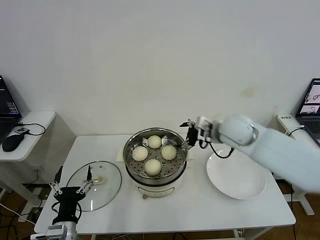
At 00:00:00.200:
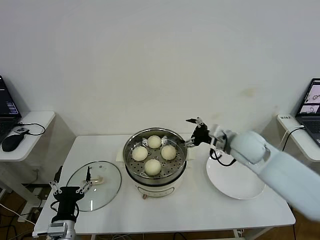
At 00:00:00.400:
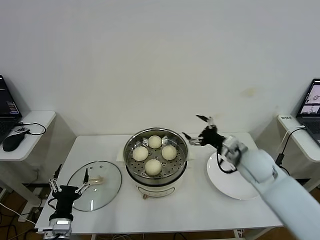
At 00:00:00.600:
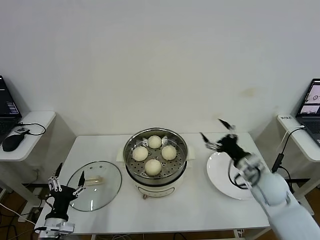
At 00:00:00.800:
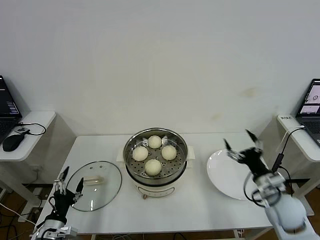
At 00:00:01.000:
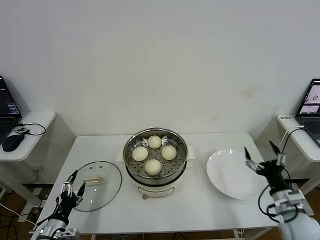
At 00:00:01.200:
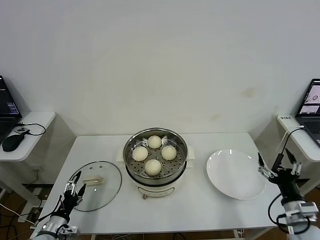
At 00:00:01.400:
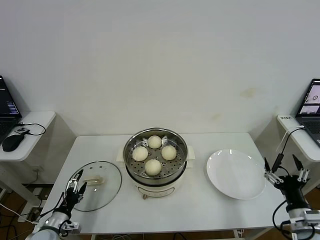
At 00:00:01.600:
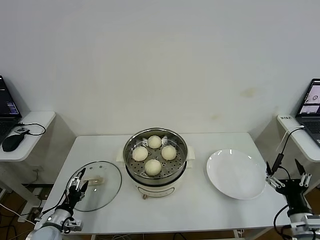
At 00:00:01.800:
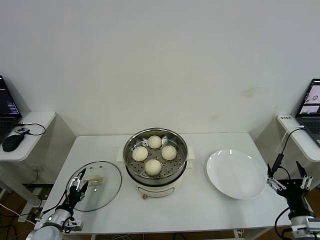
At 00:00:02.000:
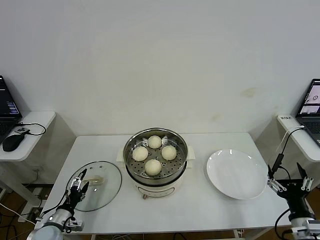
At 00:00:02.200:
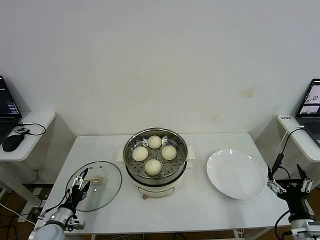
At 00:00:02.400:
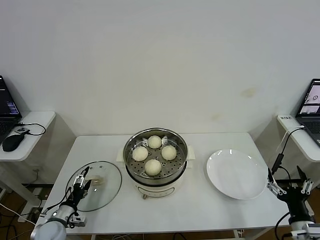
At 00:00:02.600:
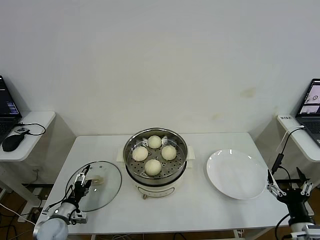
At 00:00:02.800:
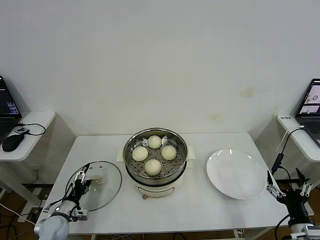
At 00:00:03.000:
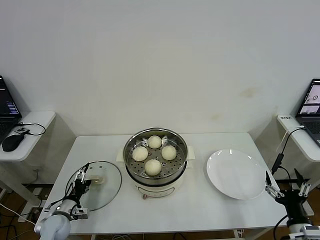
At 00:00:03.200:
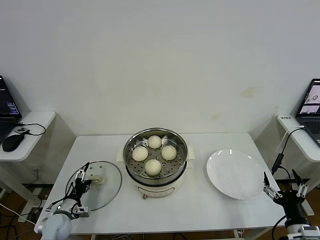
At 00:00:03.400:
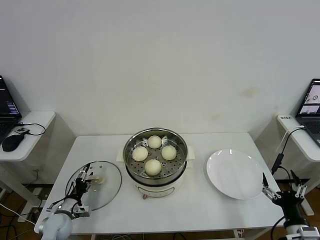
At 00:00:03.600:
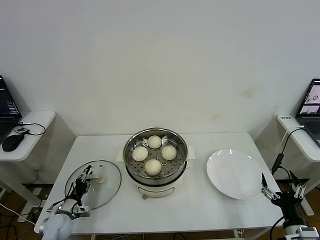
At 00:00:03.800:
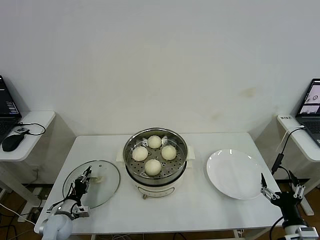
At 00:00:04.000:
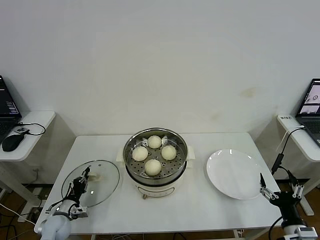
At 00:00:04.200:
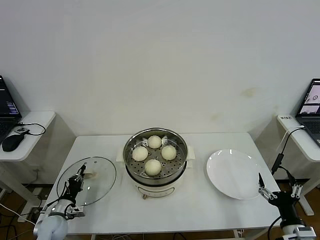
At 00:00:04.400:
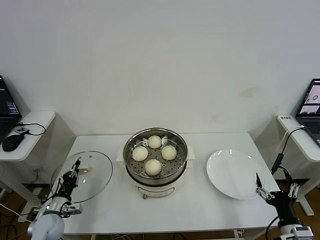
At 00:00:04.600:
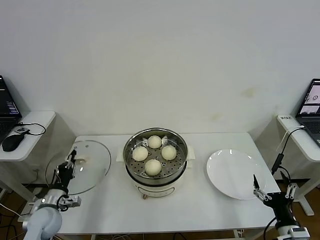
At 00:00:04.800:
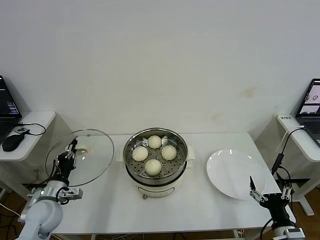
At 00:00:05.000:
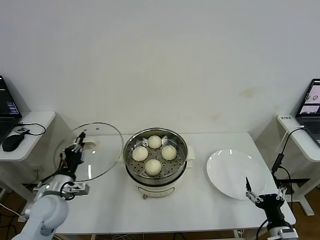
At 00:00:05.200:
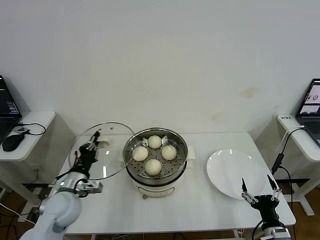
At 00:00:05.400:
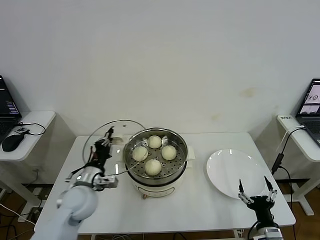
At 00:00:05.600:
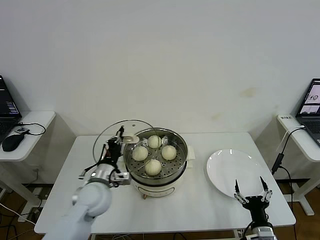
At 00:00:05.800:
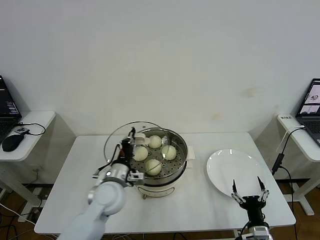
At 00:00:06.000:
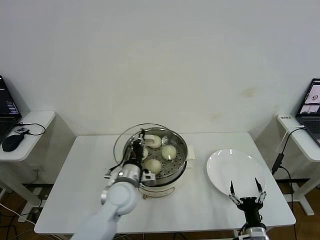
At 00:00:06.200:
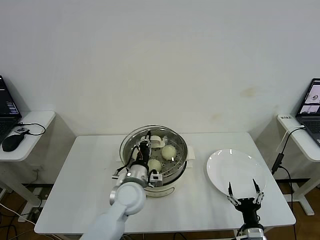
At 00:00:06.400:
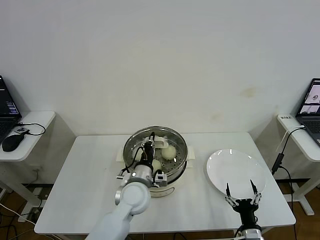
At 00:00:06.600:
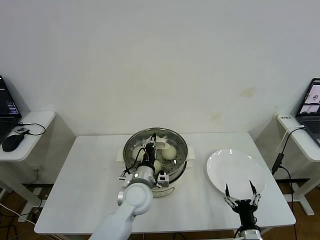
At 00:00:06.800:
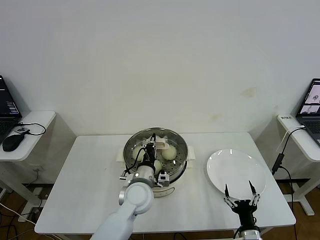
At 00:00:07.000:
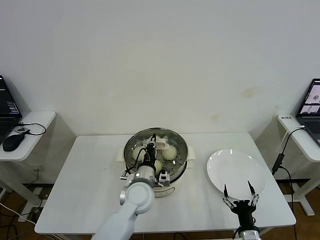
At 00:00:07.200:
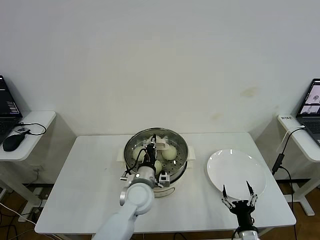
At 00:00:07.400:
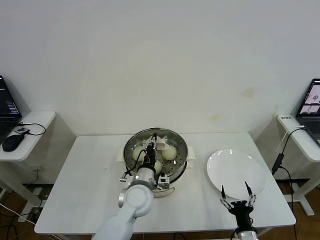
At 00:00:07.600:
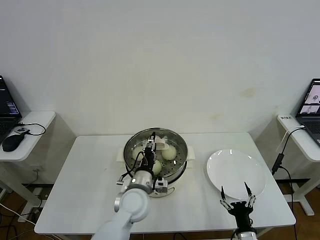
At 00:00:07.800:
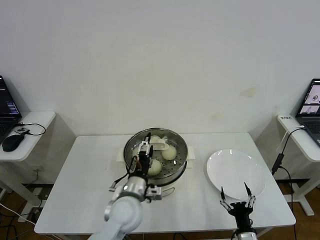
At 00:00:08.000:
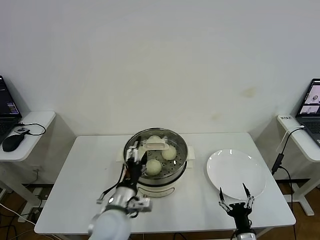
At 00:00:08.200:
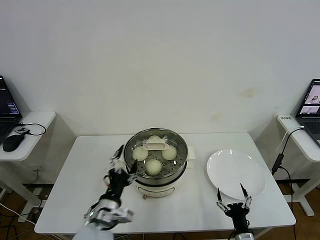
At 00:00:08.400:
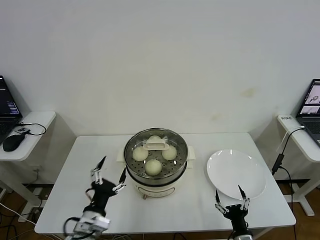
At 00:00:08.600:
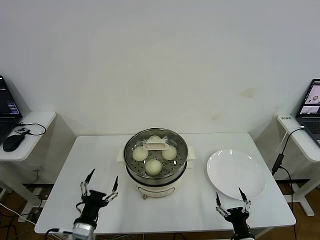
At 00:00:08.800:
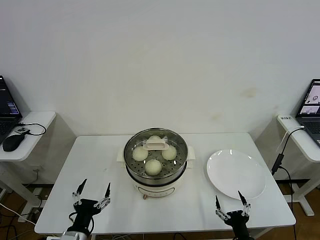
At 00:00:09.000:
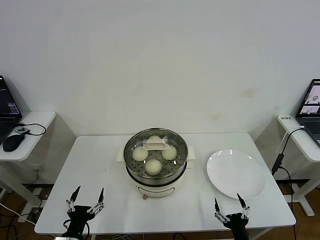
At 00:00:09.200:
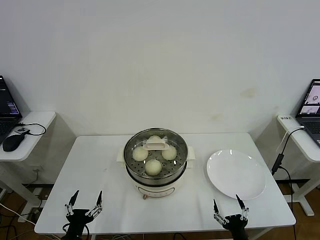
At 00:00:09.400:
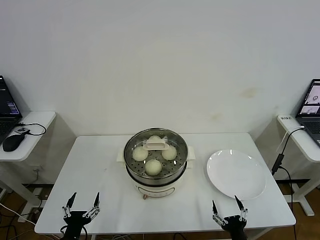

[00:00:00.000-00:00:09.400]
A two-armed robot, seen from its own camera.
Step, 00:00:00.000 to 00:00:04.000: Grasp the pot lid with left gripper.
Step, 00:00:04.200 to 00:00:07.400: Place the pot lid on the steamer with left gripper.
00:00:00.000 to 00:00:01.600: The left gripper travels to the left, downward and forward by approximately 15 cm, while the right gripper is displaced backward, to the right and downward by roughly 40 cm.
00:00:01.600 to 00:00:03.200: The left gripper is displaced forward by some 5 cm.
00:00:03.200 to 00:00:04.800: The left gripper heads upward, covering approximately 15 cm, and closes its fingers.
00:00:04.800 to 00:00:06.200: The right gripper moves to the left and downward, about 10 cm, while the left gripper goes about 25 cm to the right.
00:00:06.200 to 00:00:07.800: The left gripper opens up.
00:00:07.800 to 00:00:09.400: The left gripper goes some 30 cm to the left, backward and downward.

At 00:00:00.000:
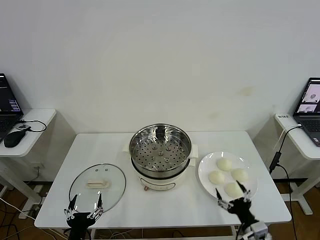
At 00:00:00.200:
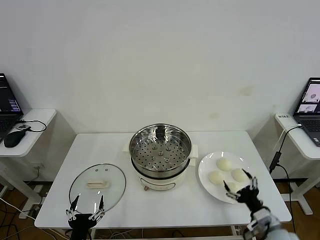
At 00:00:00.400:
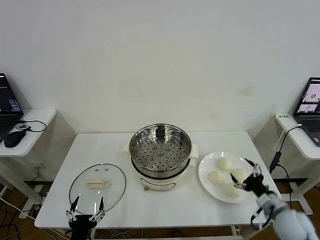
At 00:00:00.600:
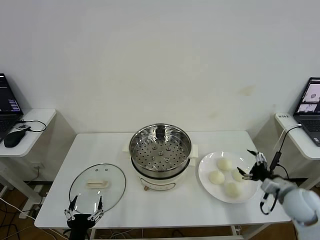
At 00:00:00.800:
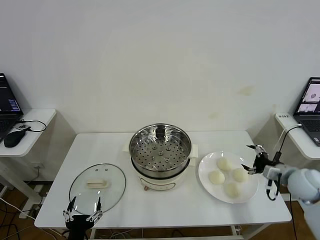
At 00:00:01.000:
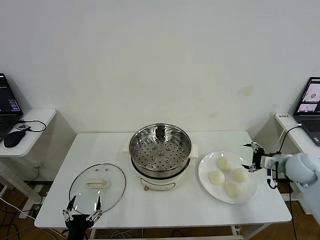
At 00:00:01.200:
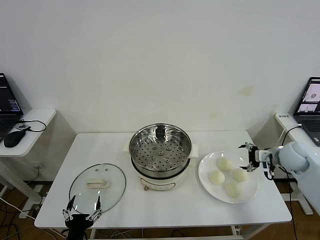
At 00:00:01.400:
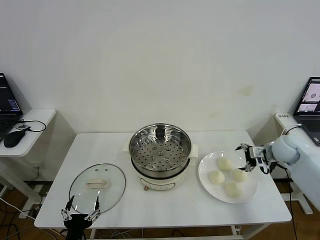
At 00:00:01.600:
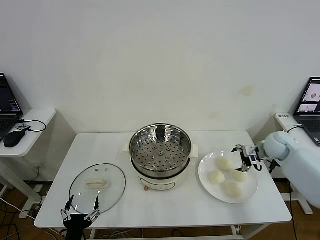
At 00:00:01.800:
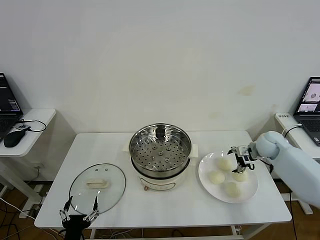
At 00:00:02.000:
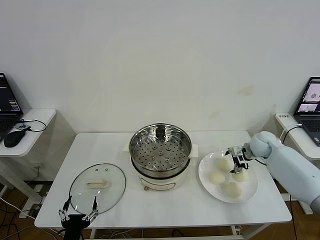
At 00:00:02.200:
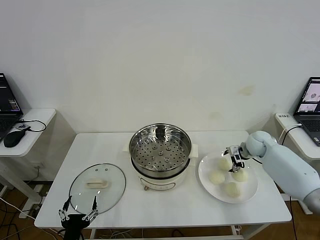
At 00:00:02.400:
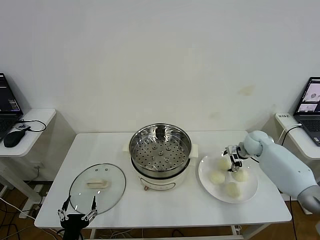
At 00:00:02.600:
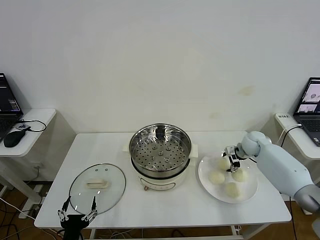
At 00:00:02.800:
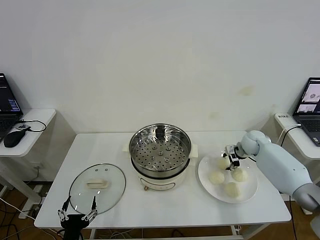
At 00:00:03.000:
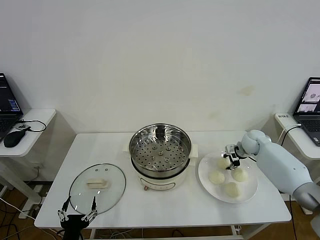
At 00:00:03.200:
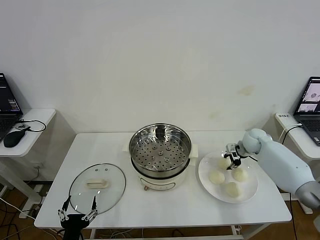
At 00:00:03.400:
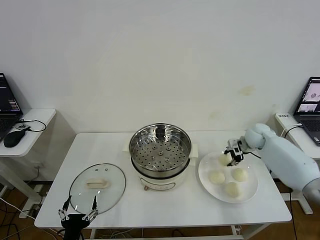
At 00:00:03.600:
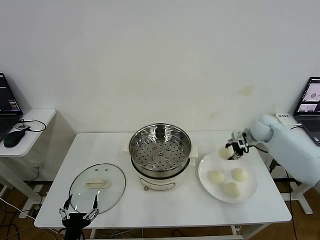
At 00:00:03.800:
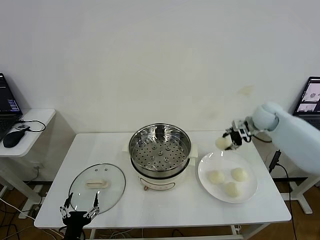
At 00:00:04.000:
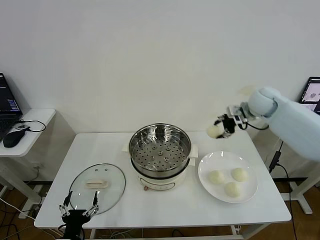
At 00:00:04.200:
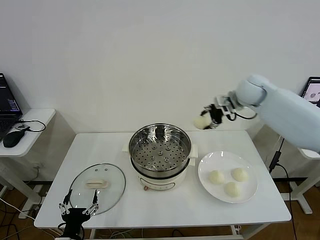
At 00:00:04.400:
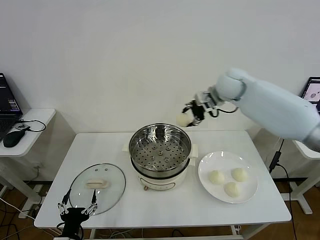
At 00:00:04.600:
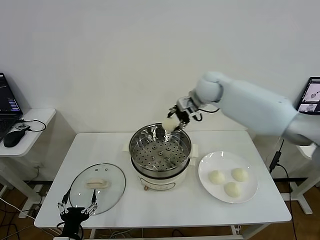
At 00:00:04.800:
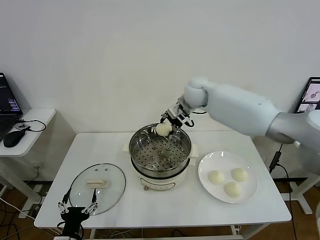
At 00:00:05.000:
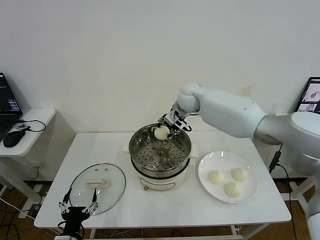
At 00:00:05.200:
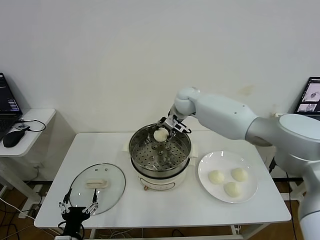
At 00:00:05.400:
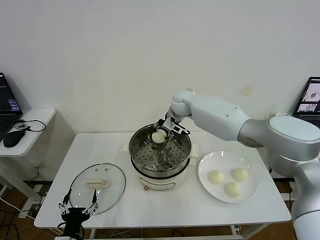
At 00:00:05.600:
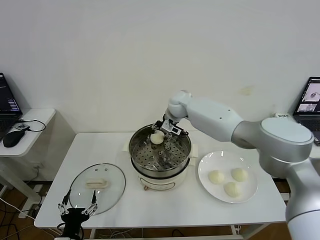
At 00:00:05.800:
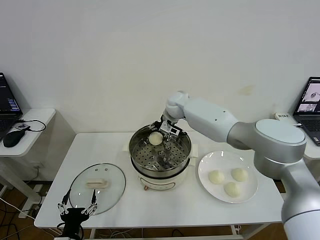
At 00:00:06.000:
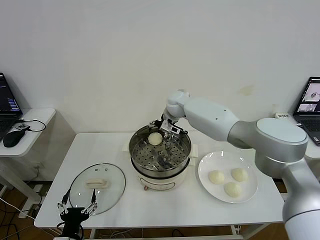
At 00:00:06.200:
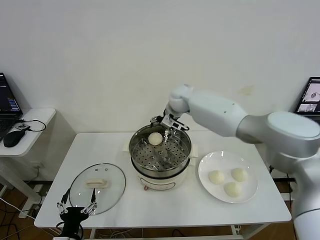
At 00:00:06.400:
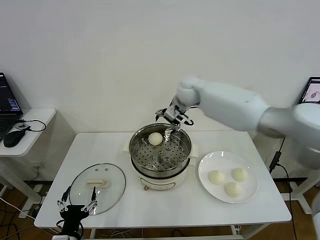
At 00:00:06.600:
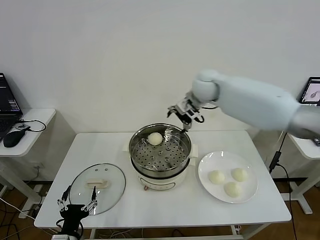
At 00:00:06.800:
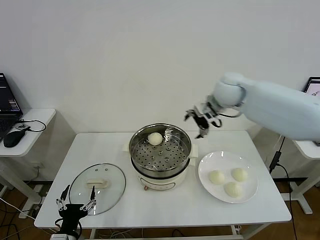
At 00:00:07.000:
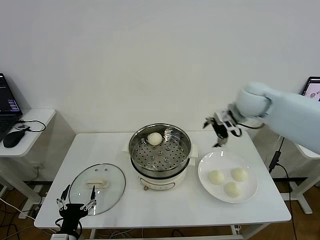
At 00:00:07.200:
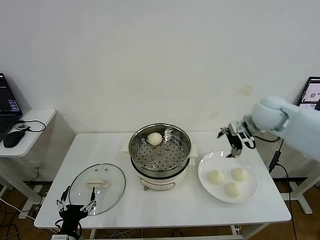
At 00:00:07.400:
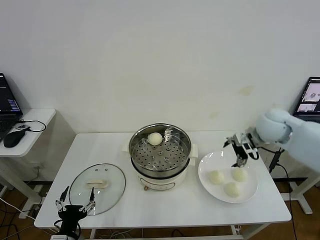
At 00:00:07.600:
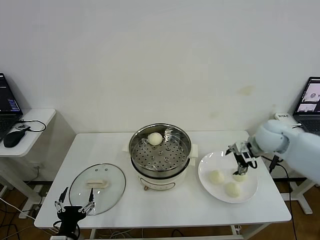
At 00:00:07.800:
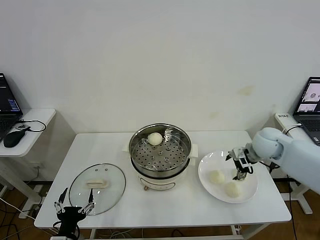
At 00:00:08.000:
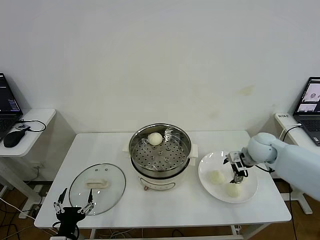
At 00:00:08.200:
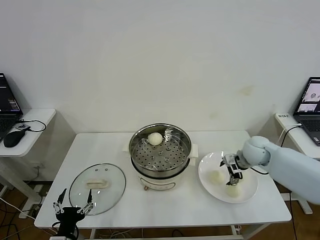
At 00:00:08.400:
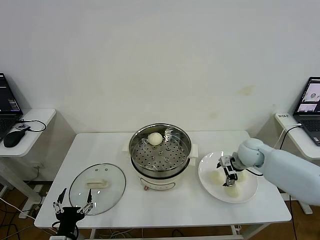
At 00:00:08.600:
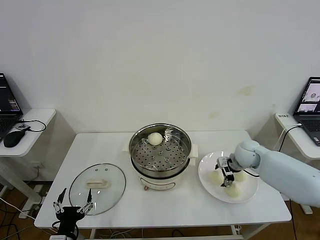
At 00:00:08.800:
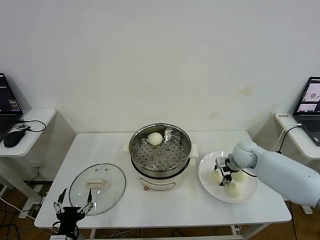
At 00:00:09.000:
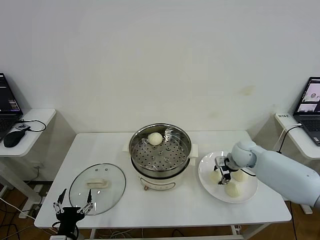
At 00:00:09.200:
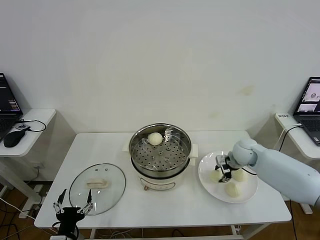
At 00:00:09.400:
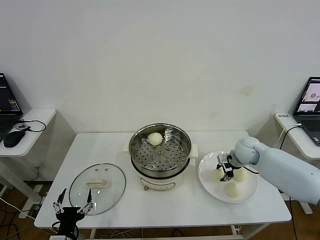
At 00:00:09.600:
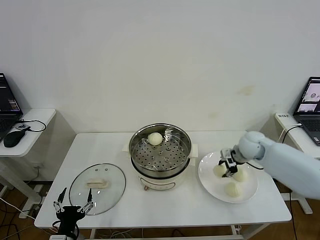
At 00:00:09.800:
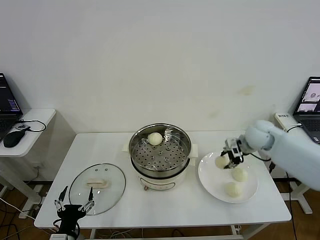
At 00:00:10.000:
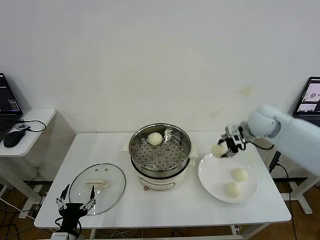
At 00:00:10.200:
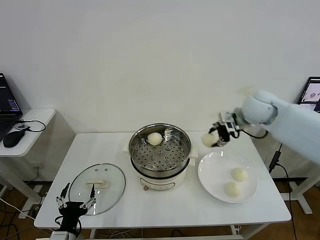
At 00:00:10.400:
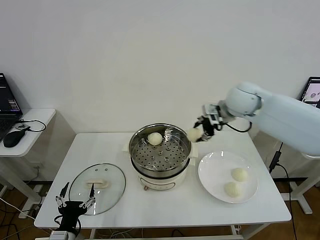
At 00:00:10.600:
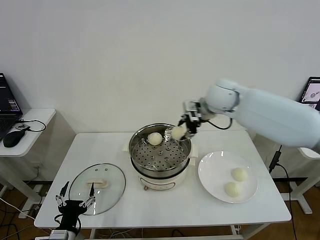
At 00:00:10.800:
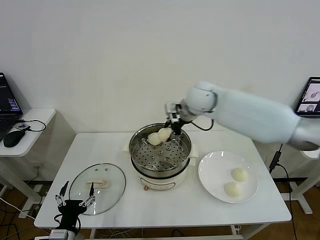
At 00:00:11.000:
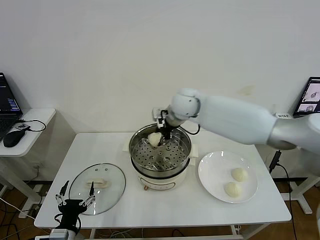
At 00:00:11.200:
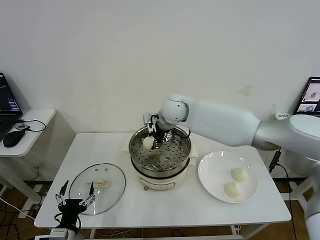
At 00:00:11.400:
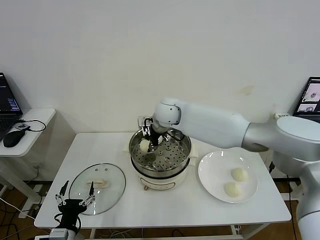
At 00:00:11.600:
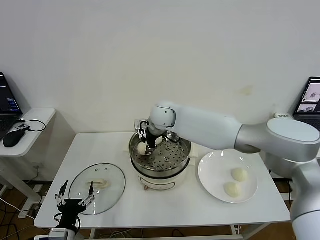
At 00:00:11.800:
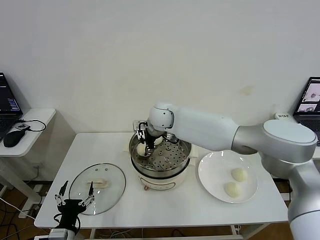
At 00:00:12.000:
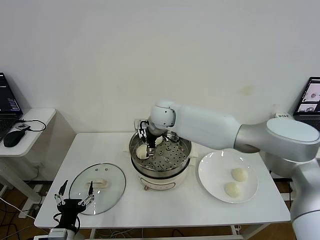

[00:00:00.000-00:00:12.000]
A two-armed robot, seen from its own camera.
Step, 00:00:00.000 to 00:00:03.000: Grasp the baozi in the plate with right gripper.
Step, 00:00:03.200 to 00:00:05.800: Place the baozi on the steamer with right gripper.
Step, 00:00:06.000 to 00:00:09.000: Grasp the baozi in the plate with right gripper.
Step, 00:00:09.200 to 00:00:12.000: Place the baozi on the steamer with right gripper.
00:00:01.600 to 00:00:03.000: The right gripper is displaced forward by approximately 5 cm, and closes its fingers.
00:00:03.000 to 00:00:04.400: The right gripper heads upward and to the left, covering some 30 cm.
00:00:04.400 to 00:00:06.000: The right gripper travels to the left and downward by some 15 cm, and opens its fingers.
00:00:06.000 to 00:00:07.600: The right gripper shifts approximately 35 cm to the right and backward.
00:00:07.600 to 00:00:09.000: The right gripper heads downward, covering roughly 10 cm, and closes its fingers.
00:00:09.000 to 00:00:10.400: The right gripper shifts about 25 cm upward and to the left.
00:00:10.400 to 00:00:12.000: The right gripper travels to the left by some 20 cm, and opens up.
